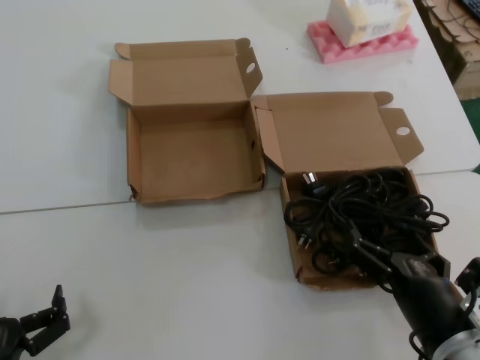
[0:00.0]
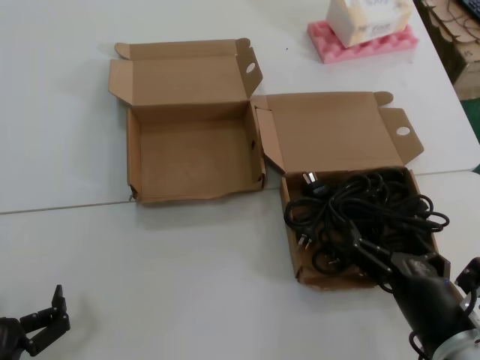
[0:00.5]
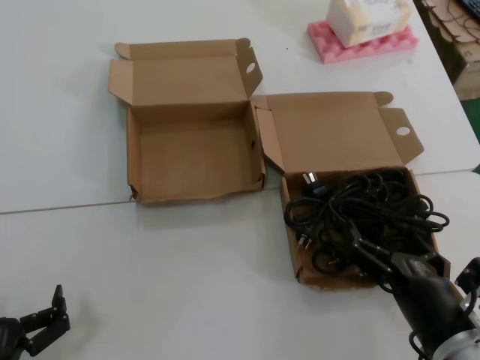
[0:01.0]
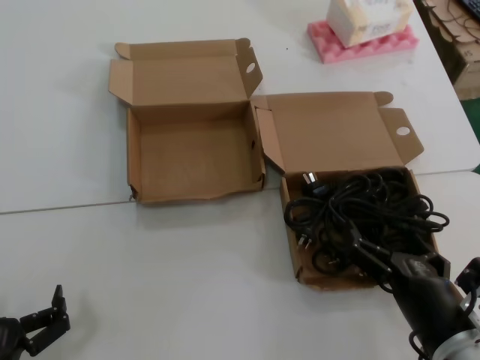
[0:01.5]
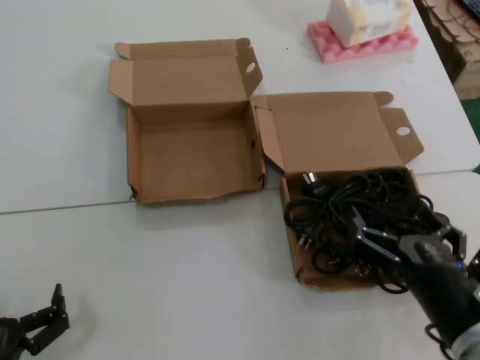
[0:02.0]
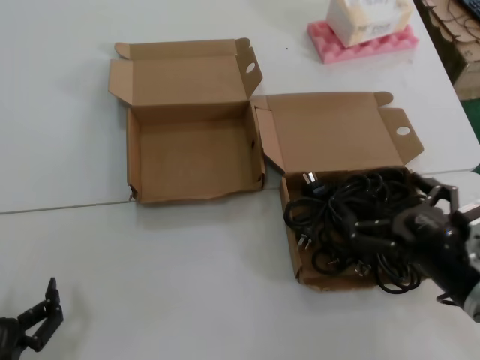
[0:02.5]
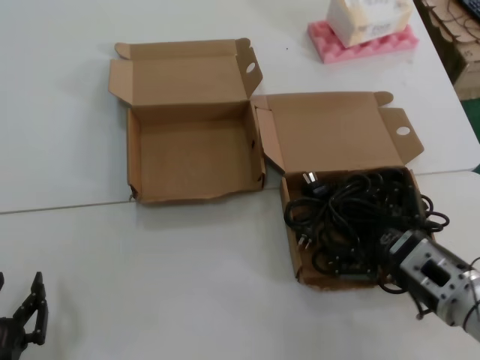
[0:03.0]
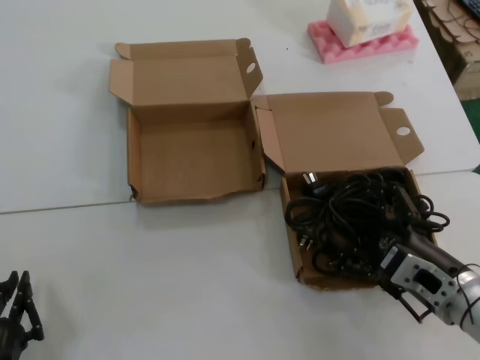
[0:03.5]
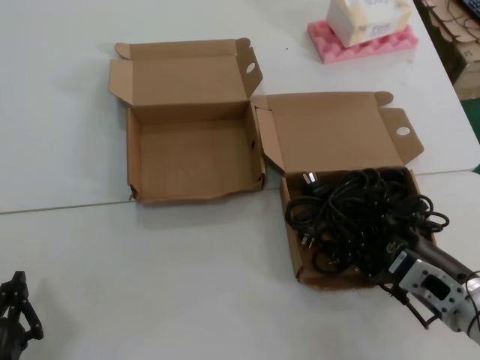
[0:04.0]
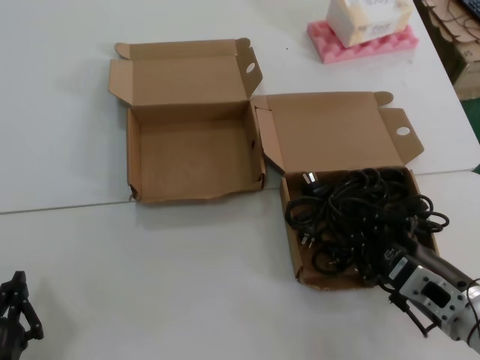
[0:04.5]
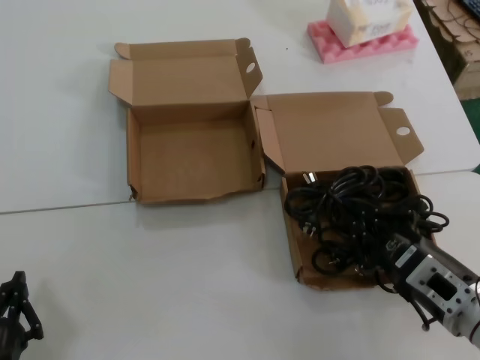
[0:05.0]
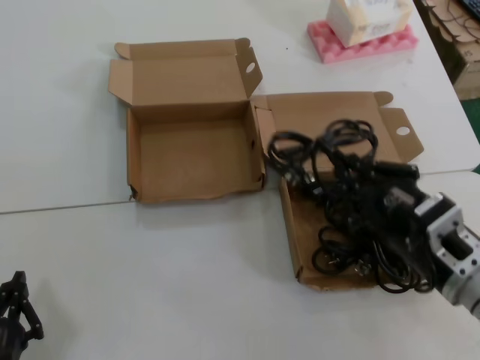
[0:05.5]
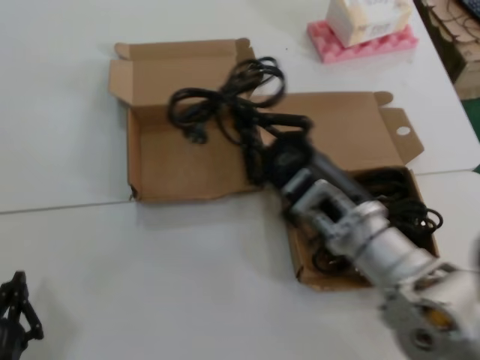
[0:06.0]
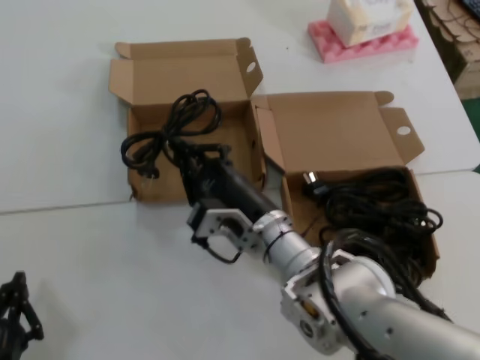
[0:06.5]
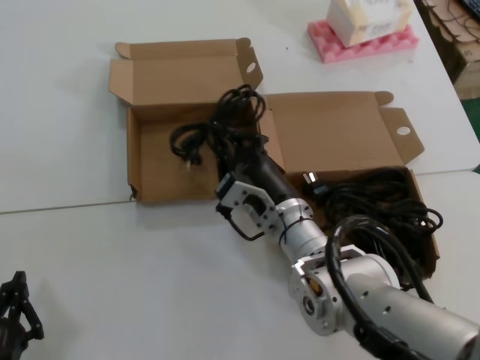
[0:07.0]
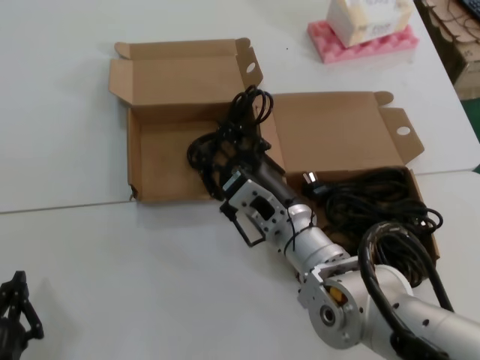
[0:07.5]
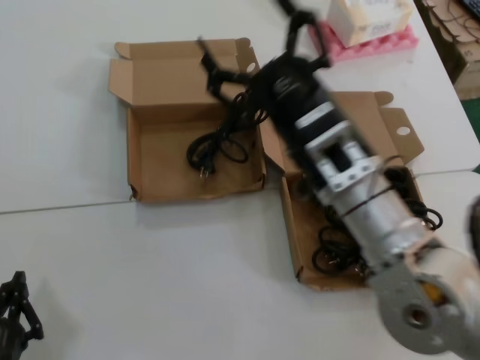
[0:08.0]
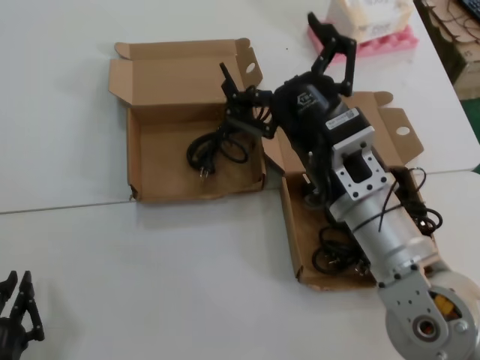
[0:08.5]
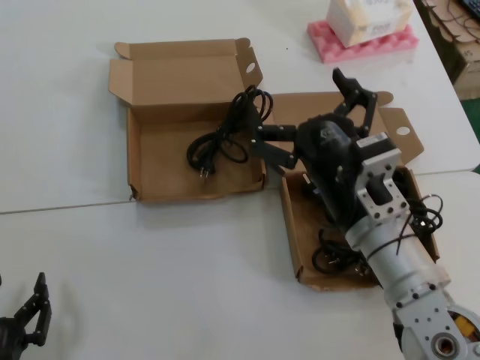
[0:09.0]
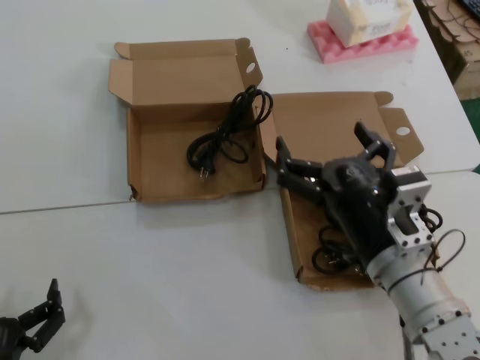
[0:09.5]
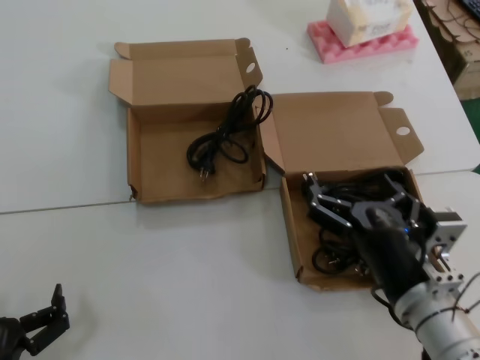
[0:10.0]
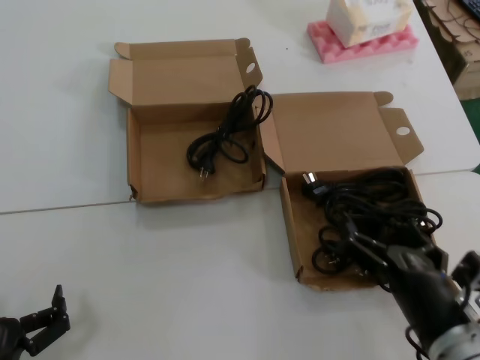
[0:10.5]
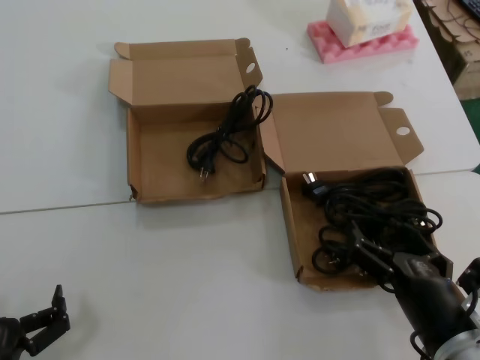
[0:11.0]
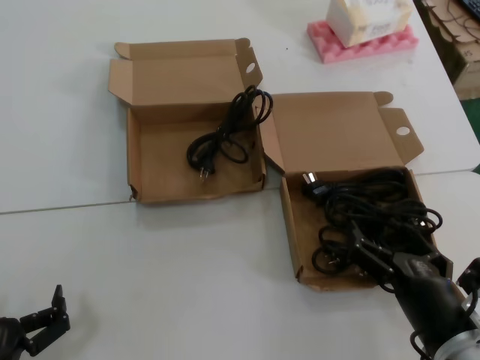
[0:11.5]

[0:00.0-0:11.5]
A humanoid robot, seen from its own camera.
Task of the whole recording: Pick up the power cord from the box containing it and place it in another box.
Step, 0:00.0 to 0:04.5: Grasp the data cable.
Step, 0:05.0 to 0:07.5: Place the data cable in the another box.
0:00.0 to 0:02.0: The hands move only a little.
0:02.0 to 0:04.0: The right hand shifts about 5 cm forward.
0:04.0 to 0:06.0: The right hand heads to the left and upward, covering some 15 cm.
0:06.0 to 0:07.5: The right hand is displaced forward, to the left and downward by some 10 cm.
0:07.5 to 0:09.5: The right hand heads backward and to the right, covering about 15 cm.
0:09.5 to 0:11.5: The right hand travels downward, backward and to the right by roughly 10 cm.
